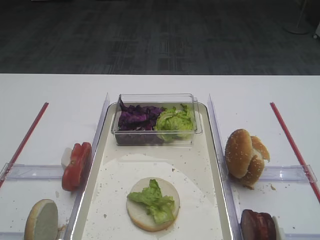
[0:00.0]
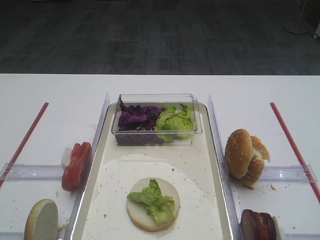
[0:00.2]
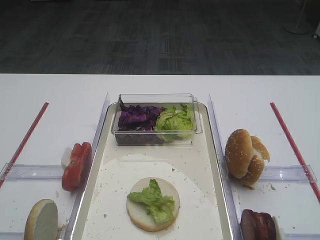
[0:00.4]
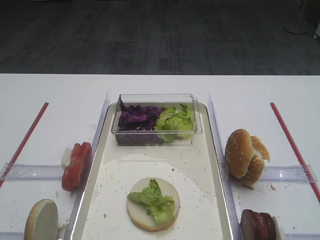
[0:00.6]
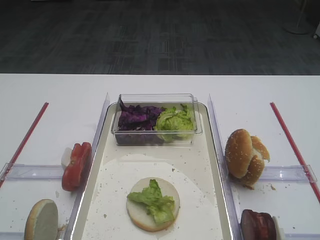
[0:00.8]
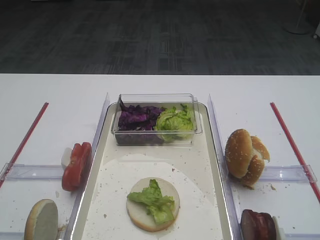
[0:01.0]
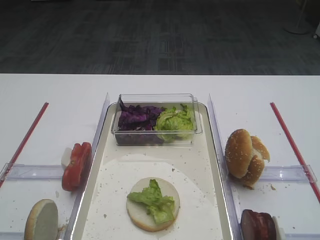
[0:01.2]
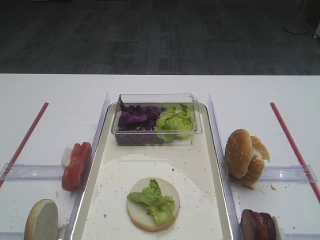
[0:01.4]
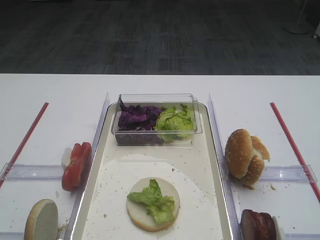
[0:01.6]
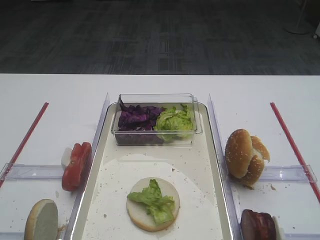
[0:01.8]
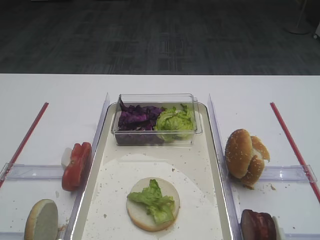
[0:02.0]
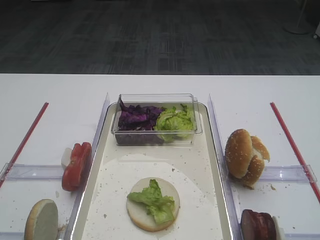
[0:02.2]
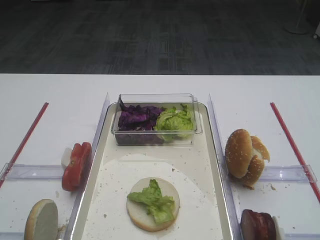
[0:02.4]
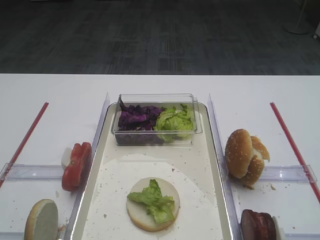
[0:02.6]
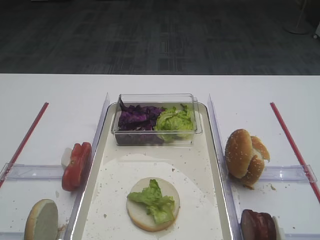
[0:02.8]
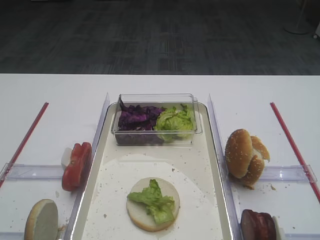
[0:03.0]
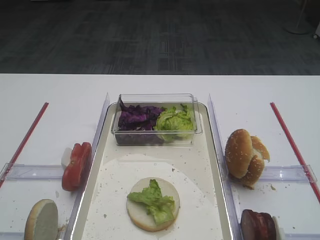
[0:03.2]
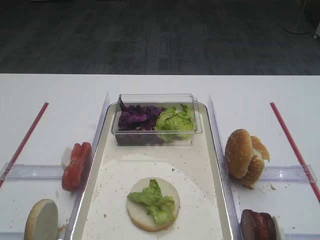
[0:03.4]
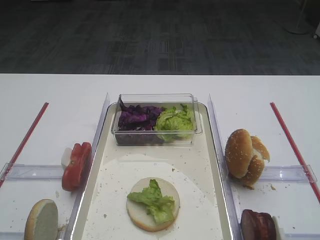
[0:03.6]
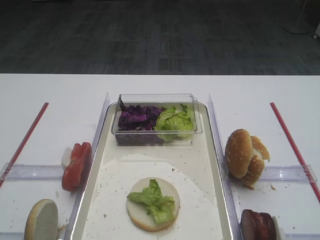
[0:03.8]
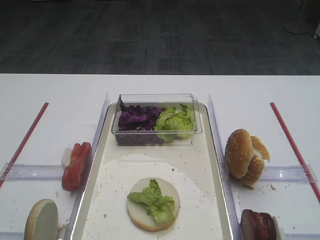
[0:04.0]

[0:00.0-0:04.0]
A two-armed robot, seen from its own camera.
0:00.0 to 0:04.0: The two grippers keep their place.

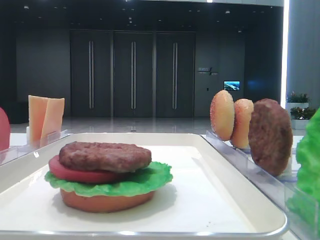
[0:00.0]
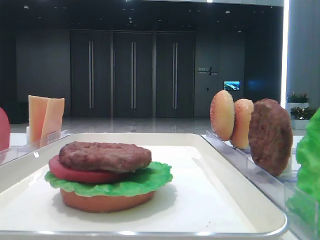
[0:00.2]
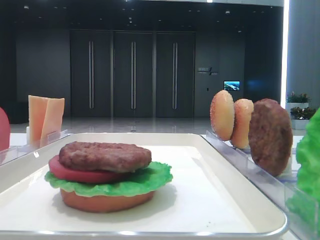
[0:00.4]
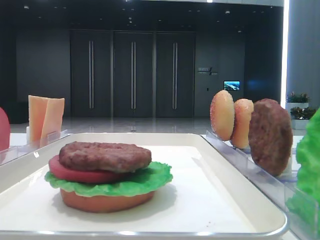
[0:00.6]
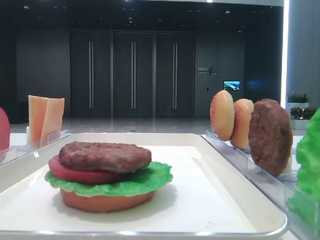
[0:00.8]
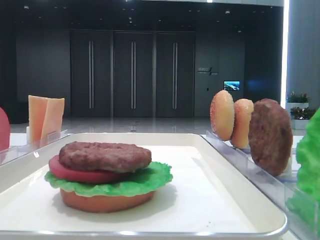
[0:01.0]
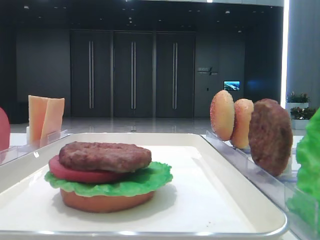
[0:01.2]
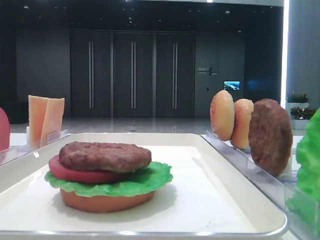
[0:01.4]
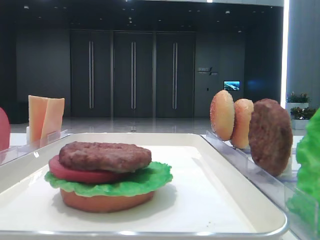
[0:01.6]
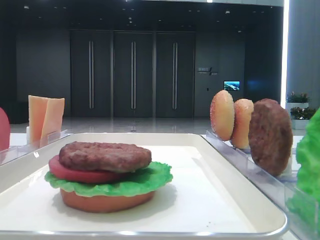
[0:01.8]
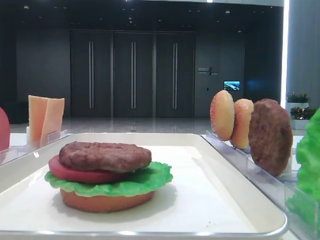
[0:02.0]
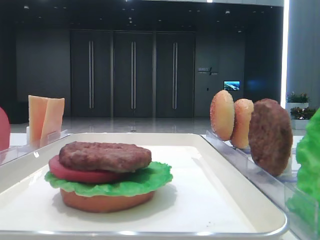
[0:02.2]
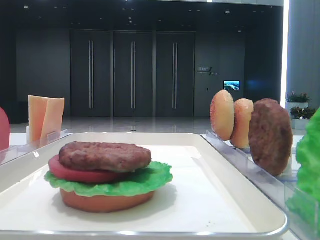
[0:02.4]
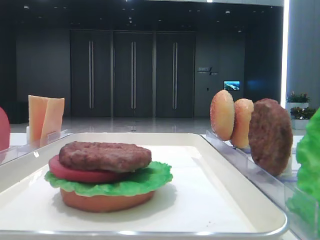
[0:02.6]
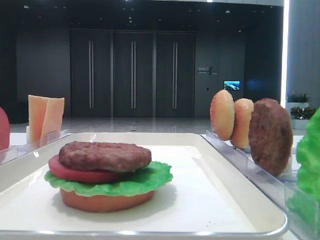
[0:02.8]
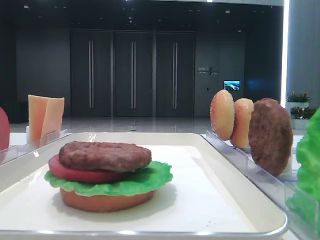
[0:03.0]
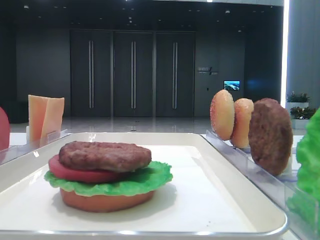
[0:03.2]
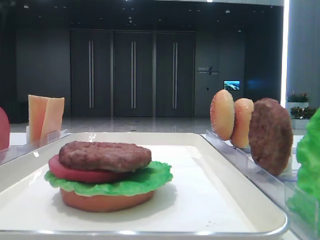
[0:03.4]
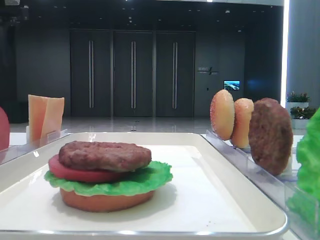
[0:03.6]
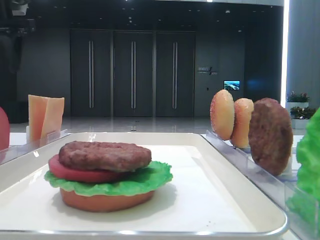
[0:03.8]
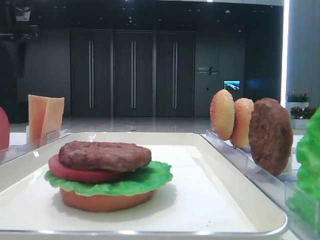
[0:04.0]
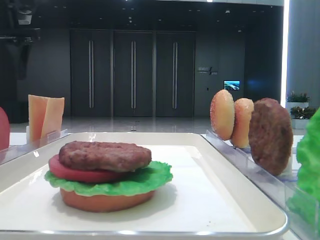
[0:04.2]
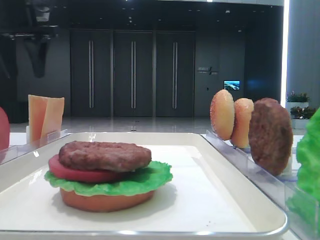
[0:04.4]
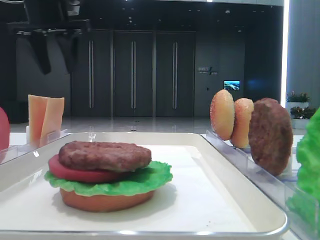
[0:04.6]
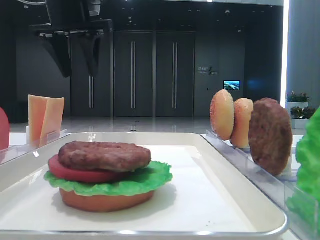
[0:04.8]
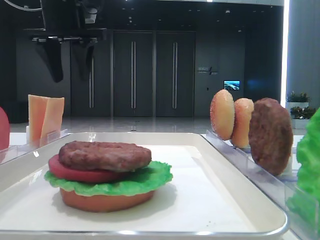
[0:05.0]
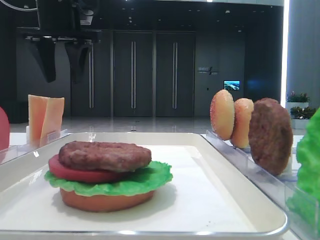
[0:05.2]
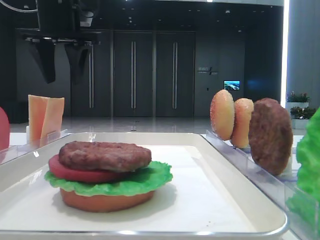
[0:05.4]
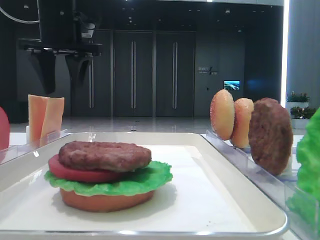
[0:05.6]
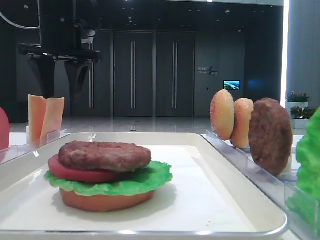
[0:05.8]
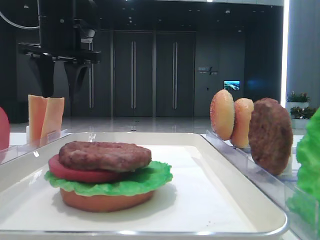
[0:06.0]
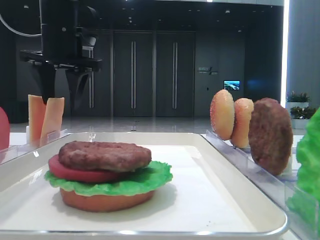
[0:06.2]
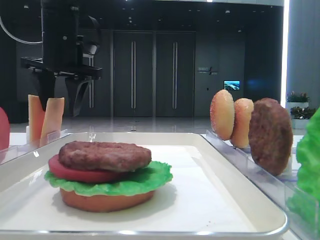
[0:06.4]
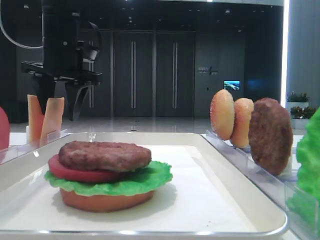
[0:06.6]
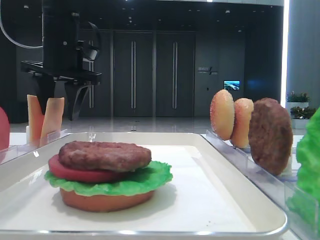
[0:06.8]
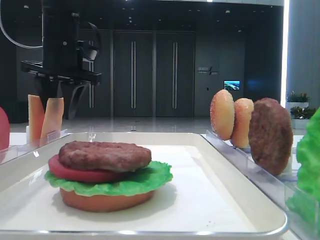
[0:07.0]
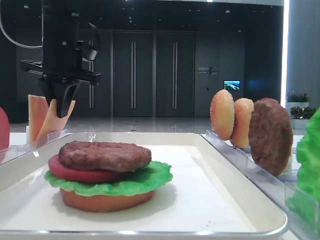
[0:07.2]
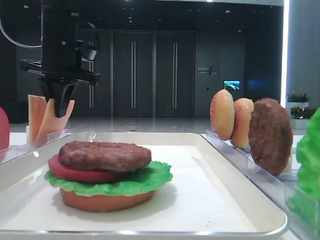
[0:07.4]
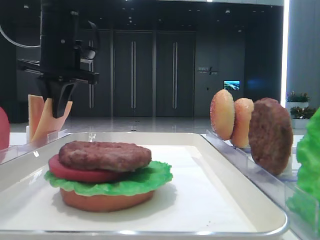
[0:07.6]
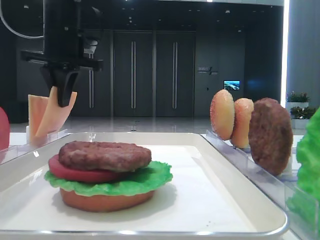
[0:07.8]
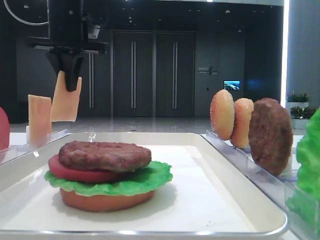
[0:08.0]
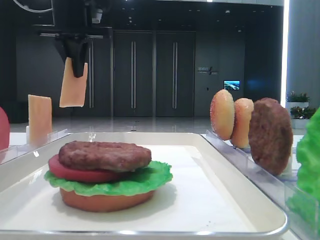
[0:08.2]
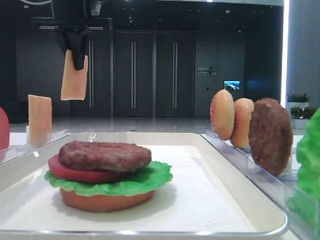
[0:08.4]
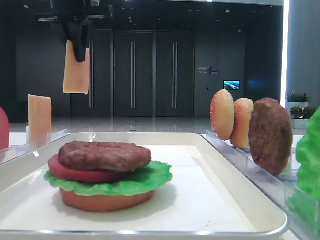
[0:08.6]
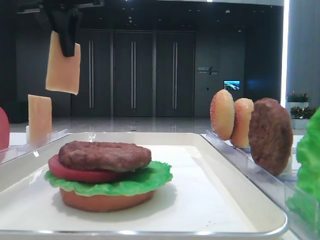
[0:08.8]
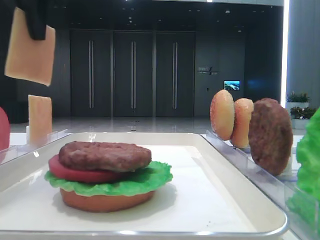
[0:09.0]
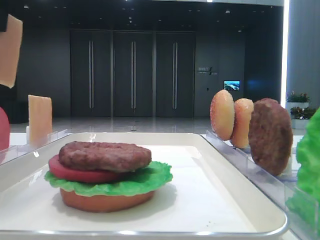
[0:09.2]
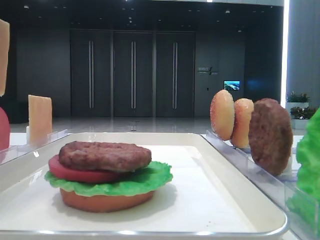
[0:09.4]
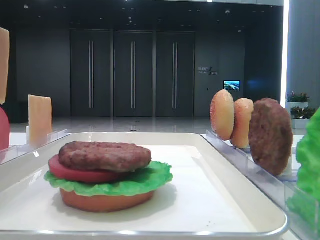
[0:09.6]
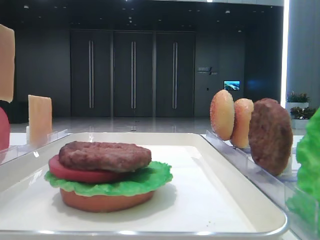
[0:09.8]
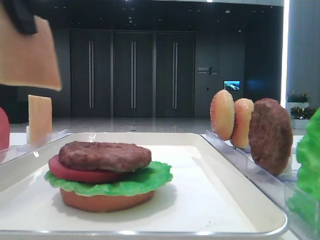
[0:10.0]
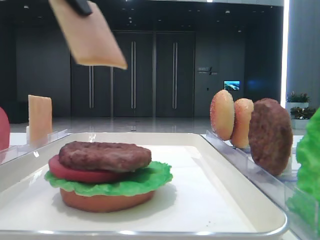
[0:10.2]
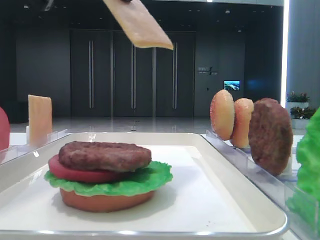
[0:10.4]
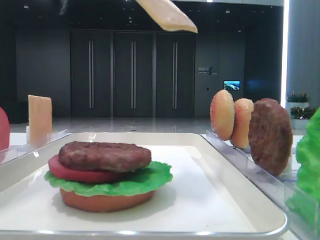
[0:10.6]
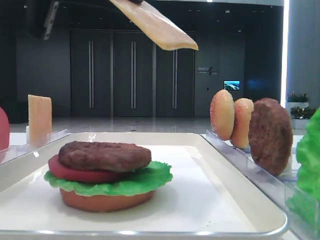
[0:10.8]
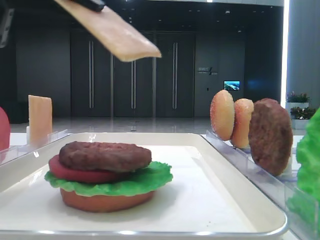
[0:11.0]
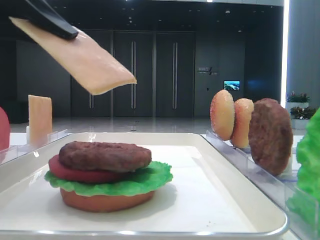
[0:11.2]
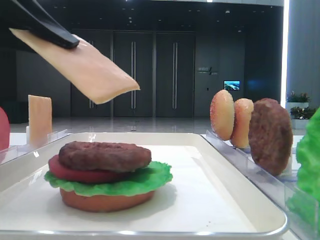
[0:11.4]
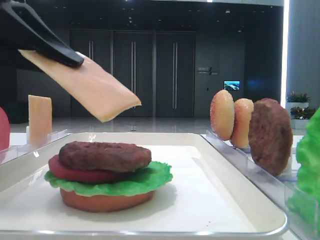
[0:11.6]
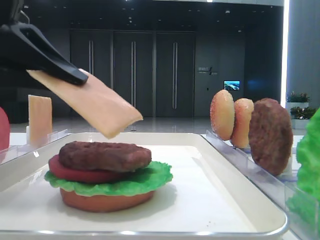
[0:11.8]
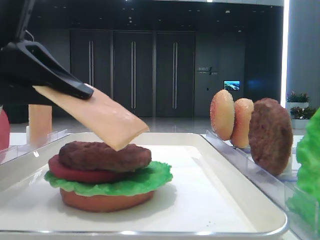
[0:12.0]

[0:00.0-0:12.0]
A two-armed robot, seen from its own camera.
Step, 0:00.0 to 0:07.4: Pick up the cheese slice with the left hand.
0:03.0 to 0:04.4: The left gripper travels forward by approximately 15 cm.
0:04.4 to 0:06.0: The left gripper travels to the right by approximately 10 cm.
0:06.0 to 0:07.6: The left gripper closes.
0:07.6 to 0:09.0: The left gripper goes some 15 cm upward and backward.
0:09.0 to 0:10.4: The left gripper travels backward by approximately 5 cm.
0:10.4 to 0:12.0: The left gripper shifts some 15 cm downward.

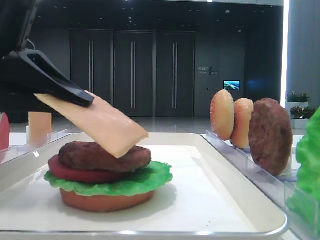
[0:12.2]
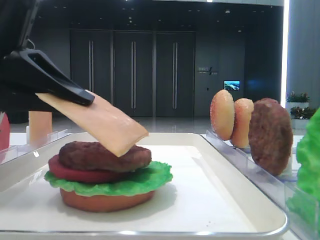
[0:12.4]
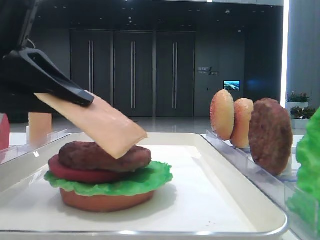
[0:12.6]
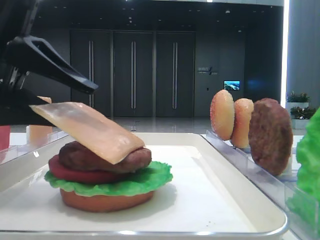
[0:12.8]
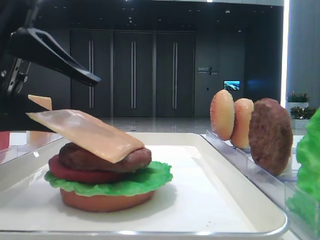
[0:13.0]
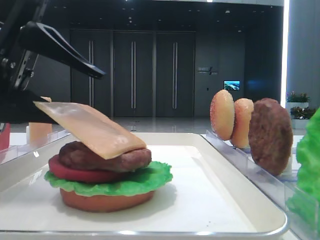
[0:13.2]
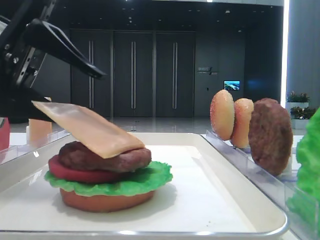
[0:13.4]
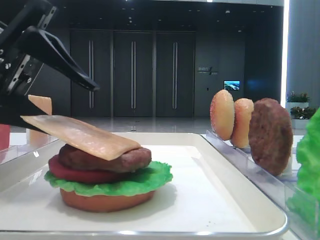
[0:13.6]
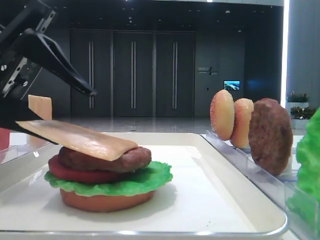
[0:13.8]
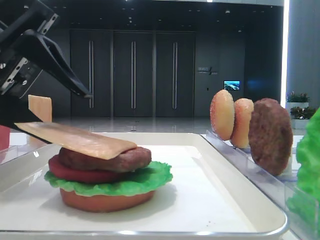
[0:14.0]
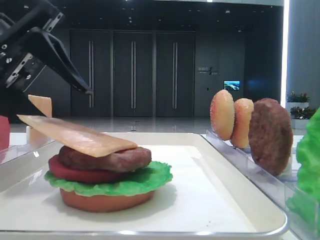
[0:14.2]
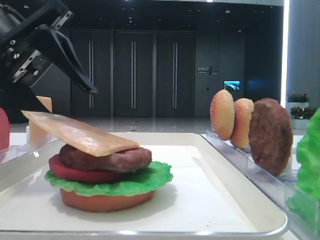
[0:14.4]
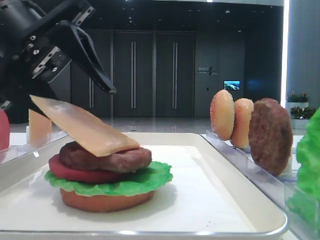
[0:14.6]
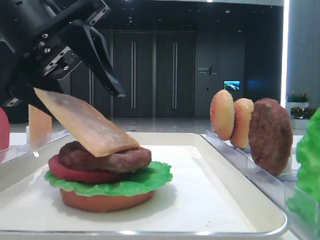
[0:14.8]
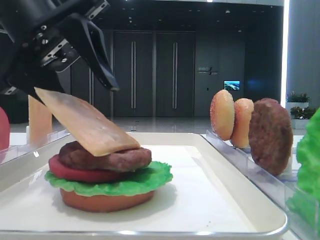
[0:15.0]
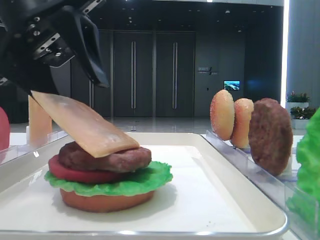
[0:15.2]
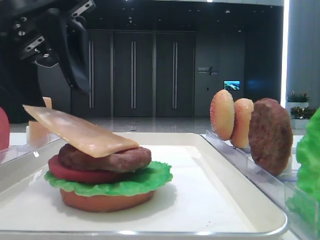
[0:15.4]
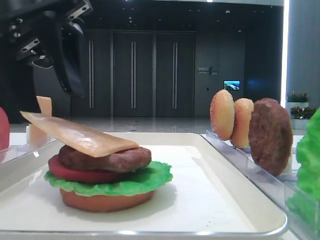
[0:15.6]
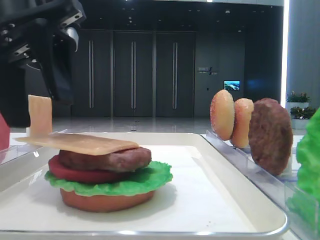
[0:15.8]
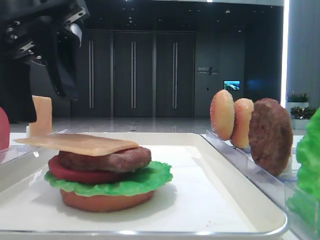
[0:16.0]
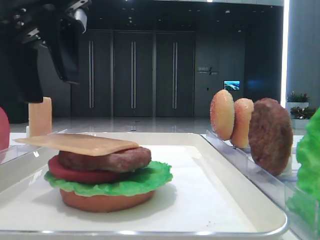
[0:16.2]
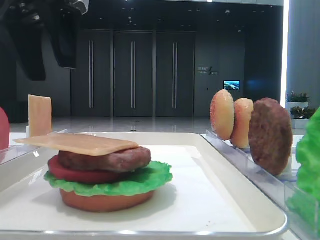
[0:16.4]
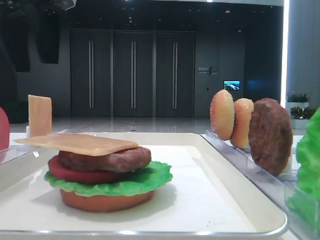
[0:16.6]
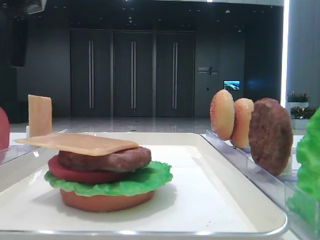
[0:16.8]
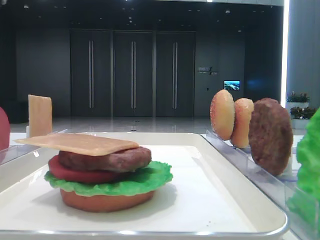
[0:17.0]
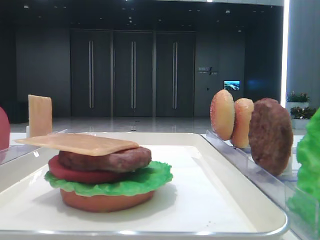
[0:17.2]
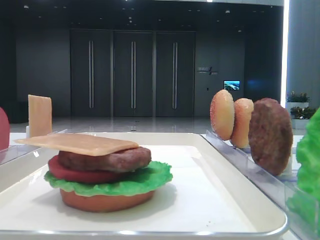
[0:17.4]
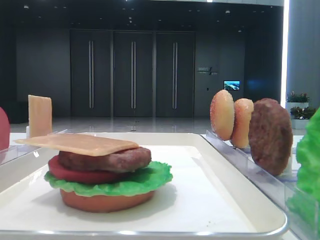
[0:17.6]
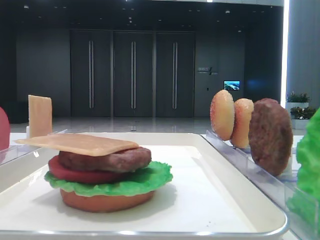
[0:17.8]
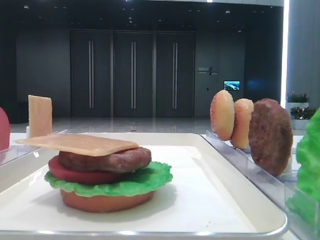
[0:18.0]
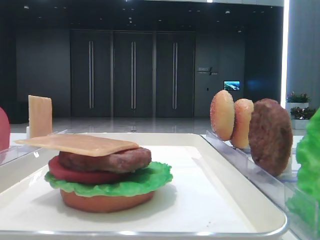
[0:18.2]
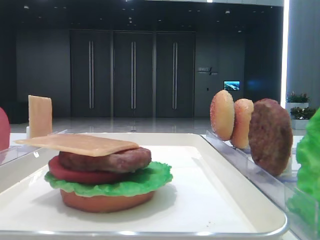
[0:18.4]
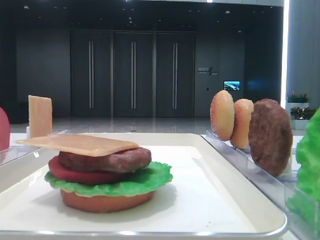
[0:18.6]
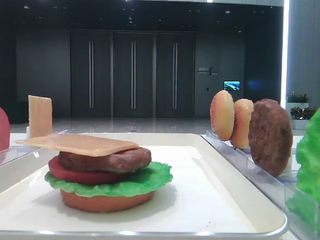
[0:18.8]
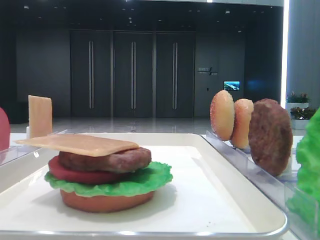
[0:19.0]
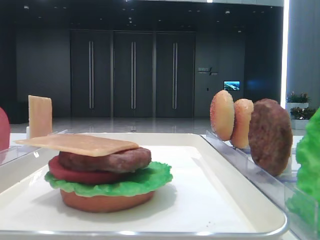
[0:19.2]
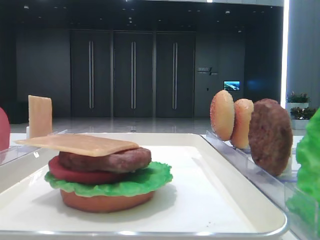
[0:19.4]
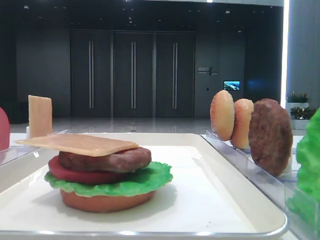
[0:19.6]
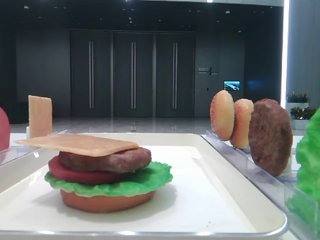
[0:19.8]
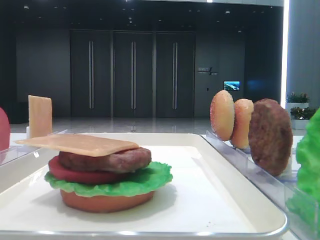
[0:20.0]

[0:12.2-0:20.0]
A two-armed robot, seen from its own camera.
Step, 0:12.2 to 0:15.6: Place the cheese slice on the patty with the left hand.
0:12.2 to 0:13.8: The left gripper opens.
0:13.8 to 0:15.4: The left gripper goes some 5 cm upward.
0:15.4 to 0:16.8: The left gripper shifts roughly 15 cm to the left, upward and forward.
0:16.8 to 0:18.4: The left gripper shifts some 30 cm backward.
